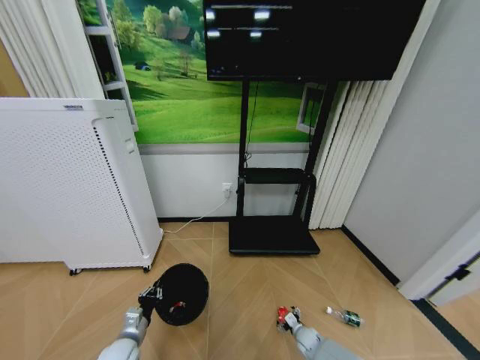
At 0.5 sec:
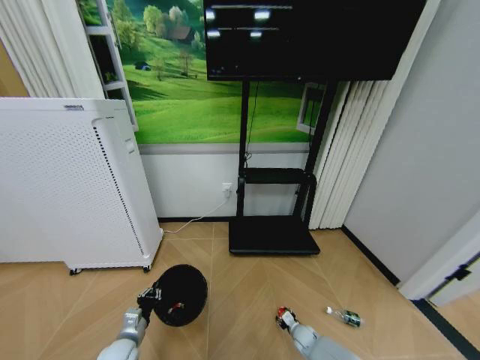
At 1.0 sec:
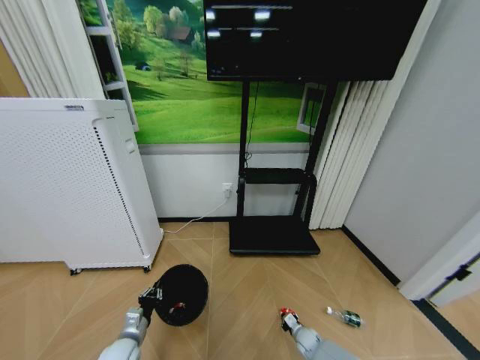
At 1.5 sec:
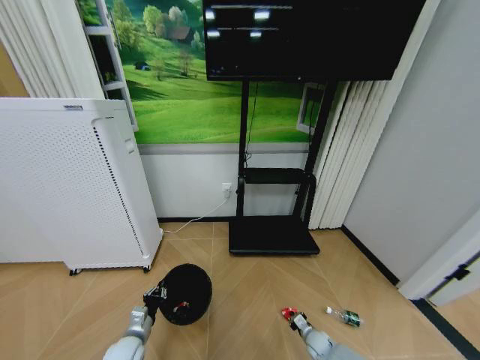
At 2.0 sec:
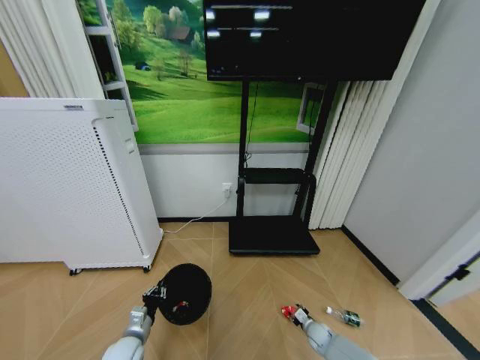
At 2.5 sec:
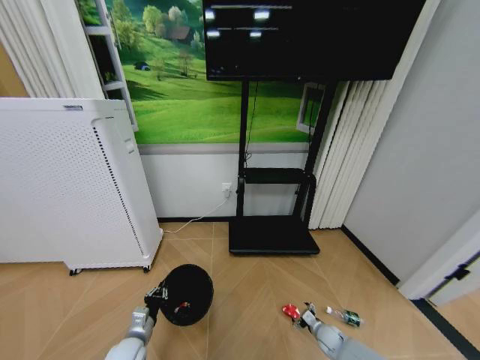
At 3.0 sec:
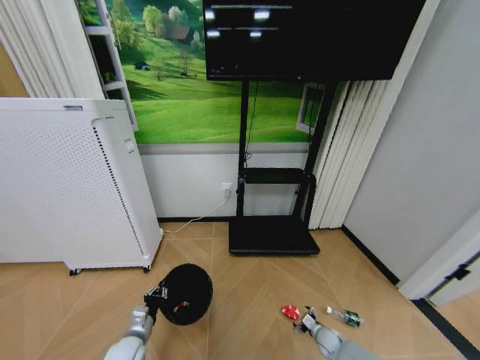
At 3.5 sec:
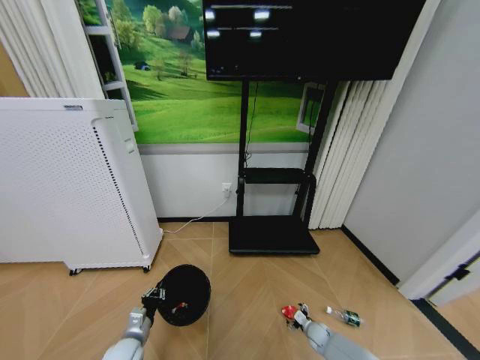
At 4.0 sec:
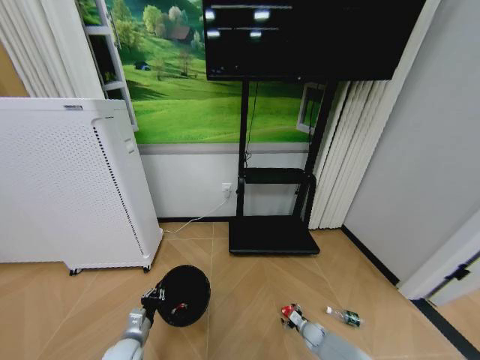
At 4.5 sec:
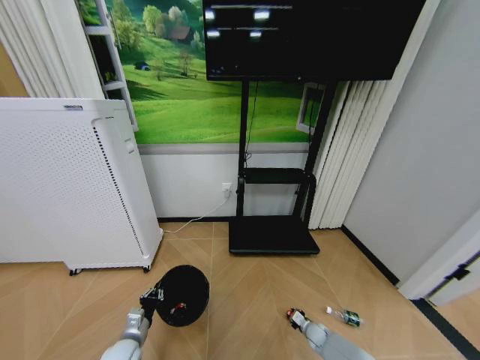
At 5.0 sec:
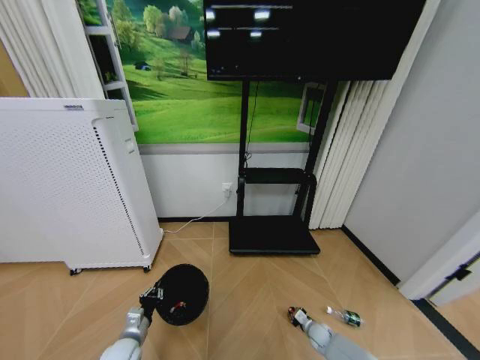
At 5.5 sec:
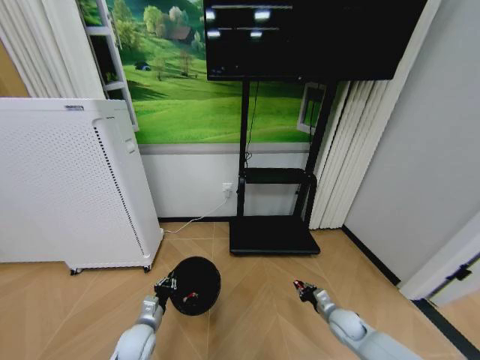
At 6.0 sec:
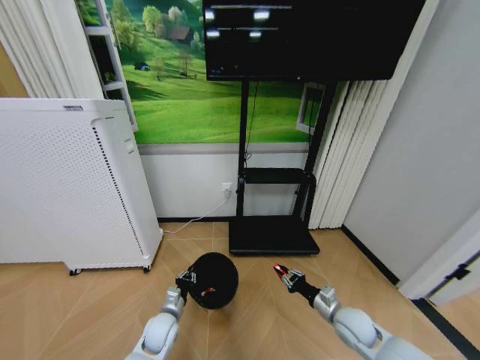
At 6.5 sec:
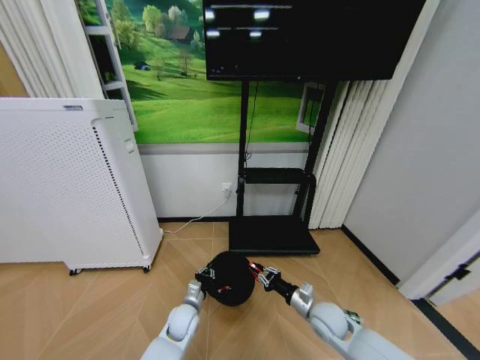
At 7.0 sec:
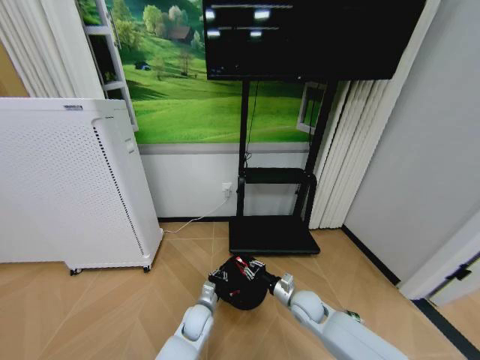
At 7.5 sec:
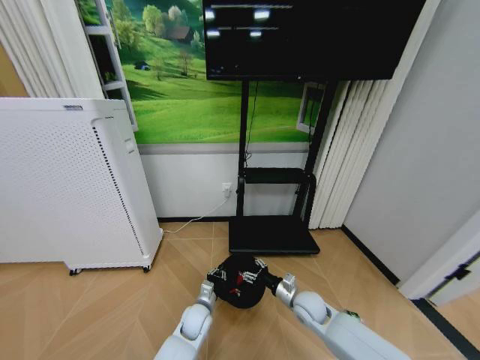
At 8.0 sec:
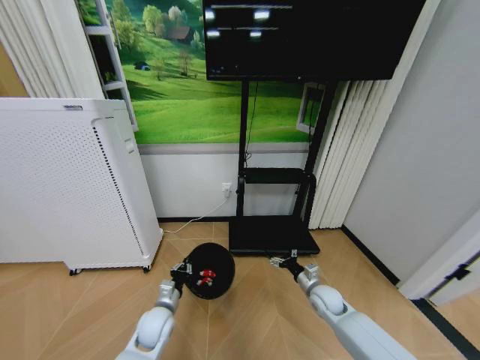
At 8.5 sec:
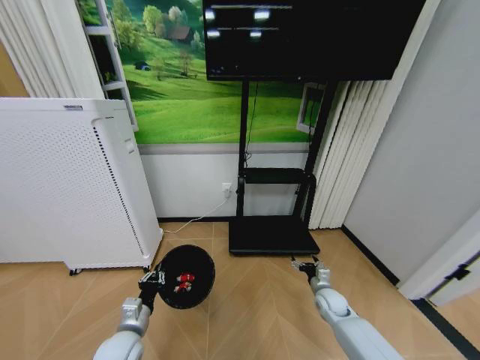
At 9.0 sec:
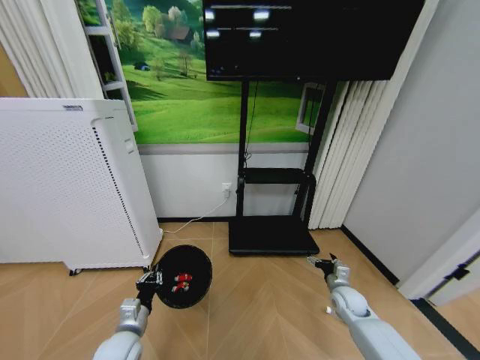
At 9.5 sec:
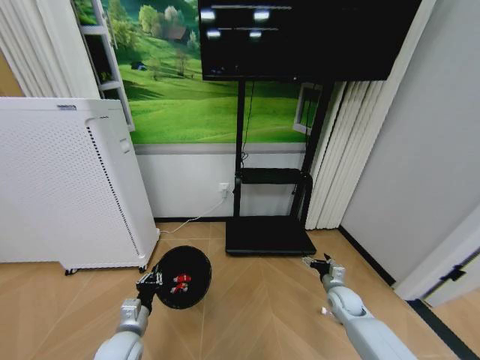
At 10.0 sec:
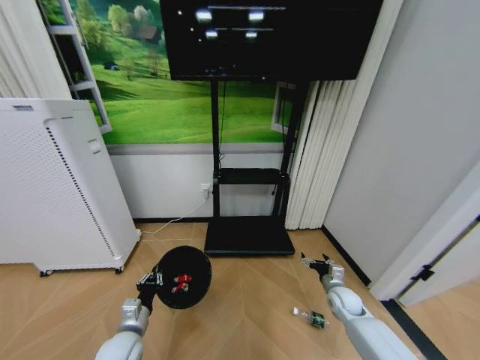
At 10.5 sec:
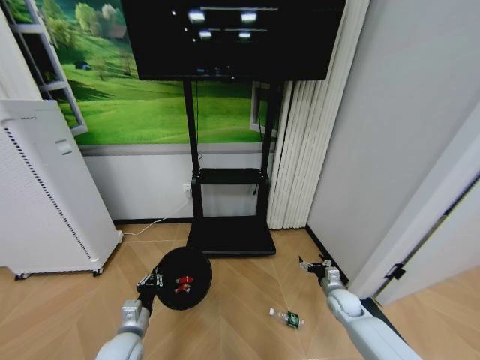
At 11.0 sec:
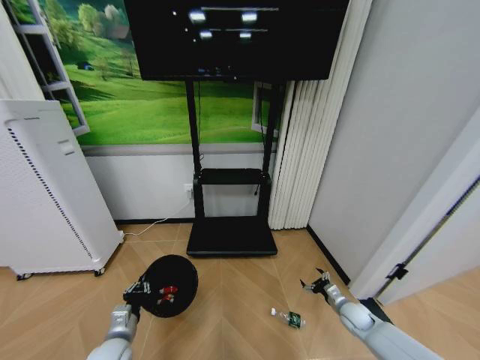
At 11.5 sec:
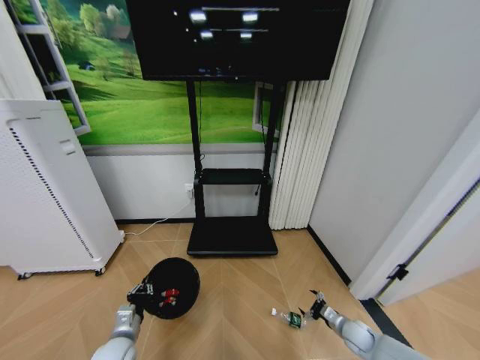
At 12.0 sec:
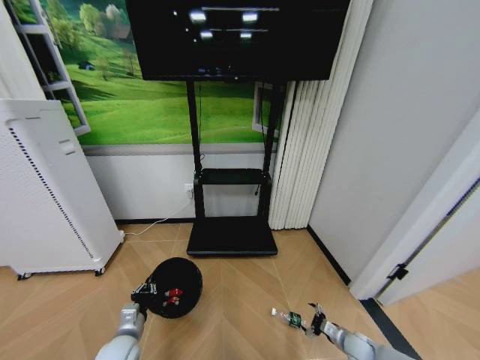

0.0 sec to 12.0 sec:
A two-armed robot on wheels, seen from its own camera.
Task of the whole recording: Pick up the trash bin and place the garbage on the floor into it.
0.0 sec to 2.0 sec: The right gripper closes its fingers.
2.0 sec to 4.0 sec: The right gripper opens up.
4.0 sec to 6.0 sec: The left gripper moves to the right and forward, approximately 10 cm. Meanwhile the right gripper shifts some 25 cm upward, and closes its fingers.
6.0 sec to 8.0 sec: The left gripper reaches about 10 cm to the right, then returns. The right gripper shifts some 10 cm forward, reaches approximately 10 cm to the left, then returns, and opens up.
8.0 sec to 10.0 sec: The right gripper travels to the right by roughly 5 cm, while the left gripper goes roughly 5 cm backward.
10.0 sec to 12.0 sec: The right gripper heads downward and backward, covering about 15 cm.

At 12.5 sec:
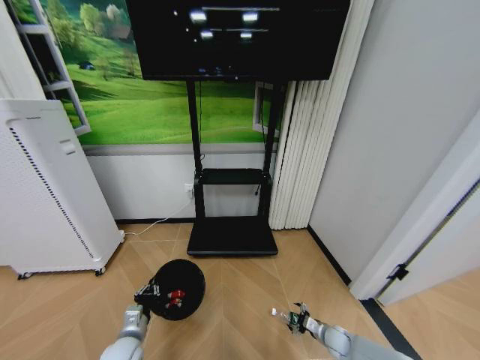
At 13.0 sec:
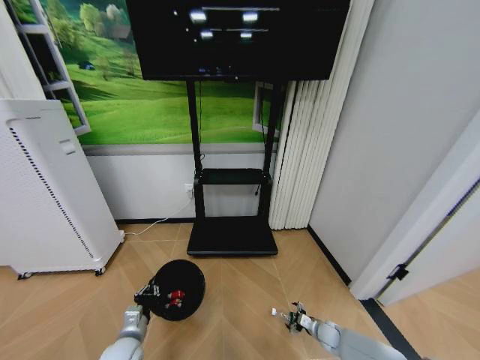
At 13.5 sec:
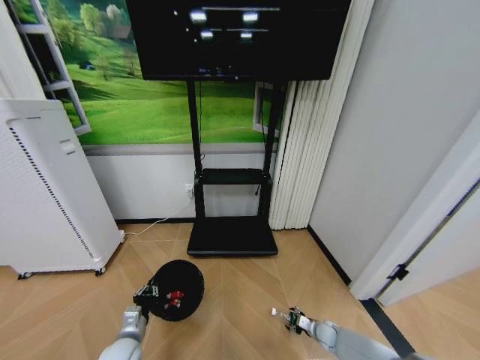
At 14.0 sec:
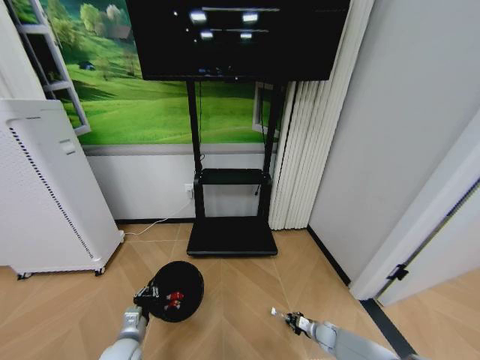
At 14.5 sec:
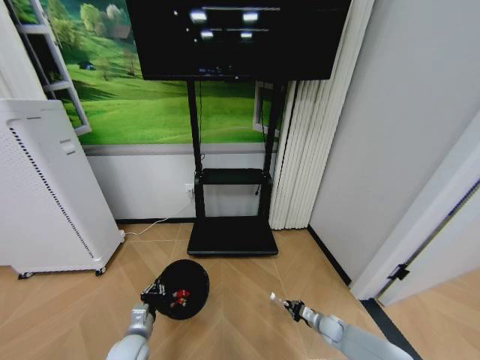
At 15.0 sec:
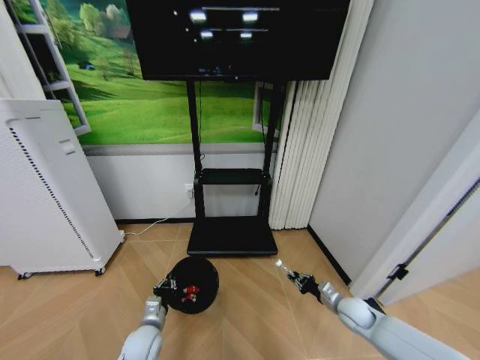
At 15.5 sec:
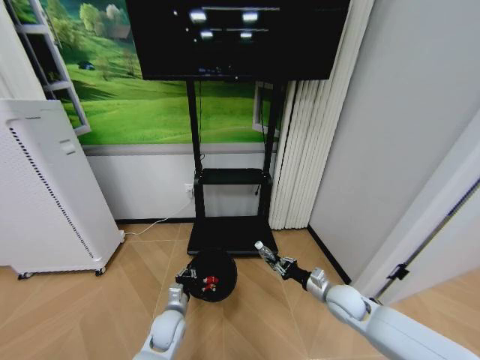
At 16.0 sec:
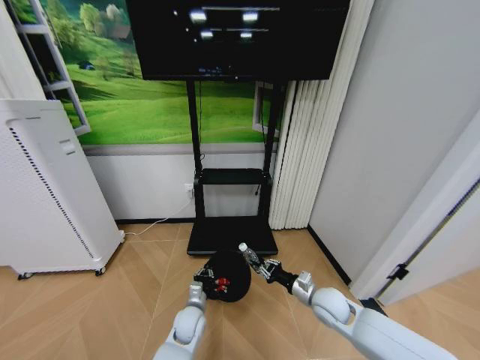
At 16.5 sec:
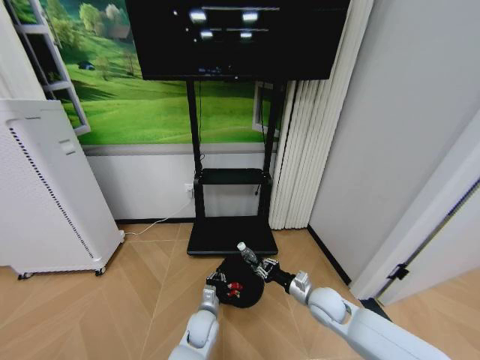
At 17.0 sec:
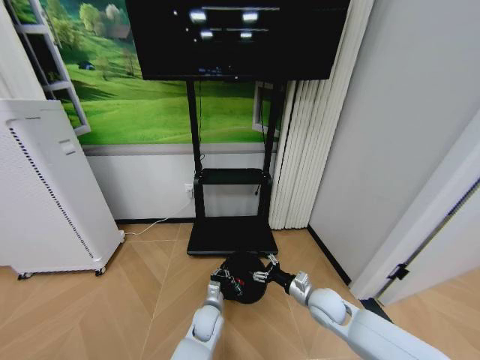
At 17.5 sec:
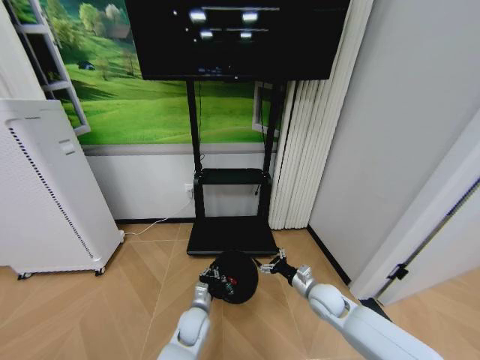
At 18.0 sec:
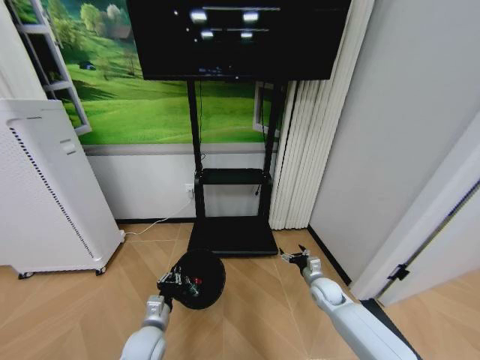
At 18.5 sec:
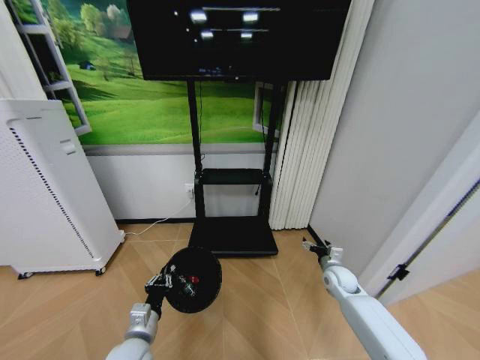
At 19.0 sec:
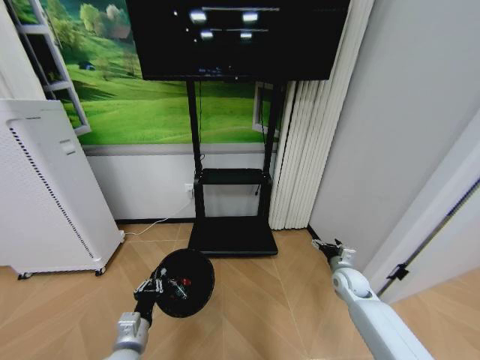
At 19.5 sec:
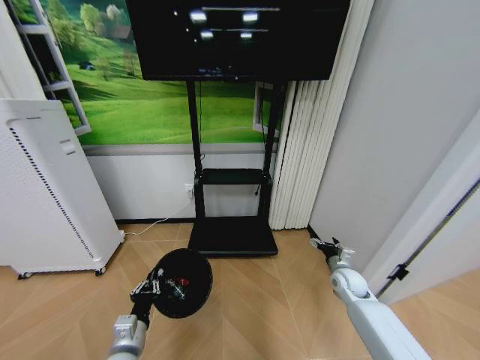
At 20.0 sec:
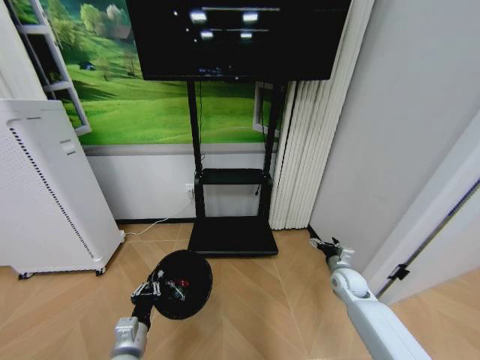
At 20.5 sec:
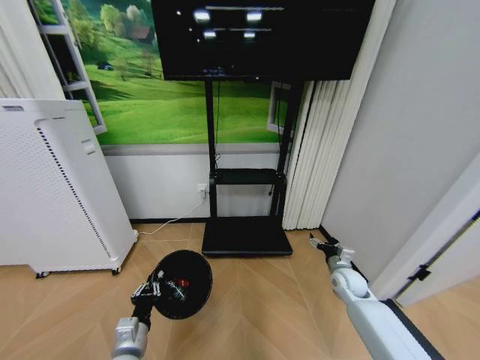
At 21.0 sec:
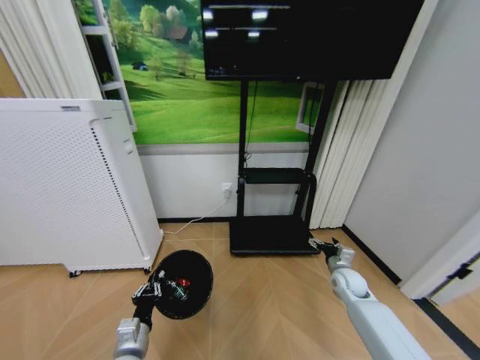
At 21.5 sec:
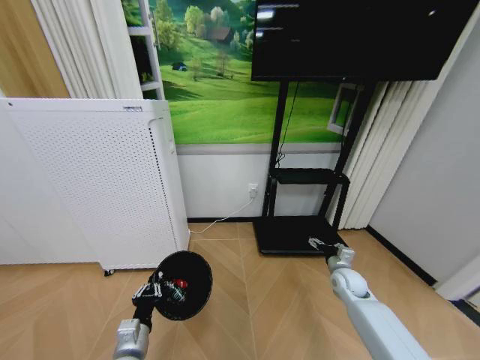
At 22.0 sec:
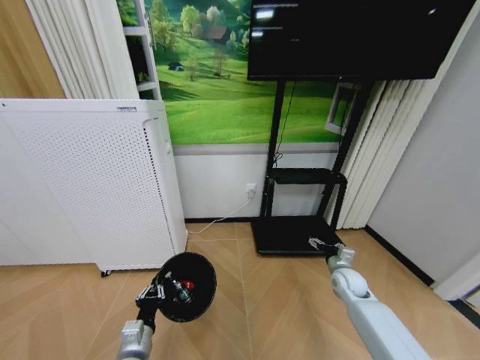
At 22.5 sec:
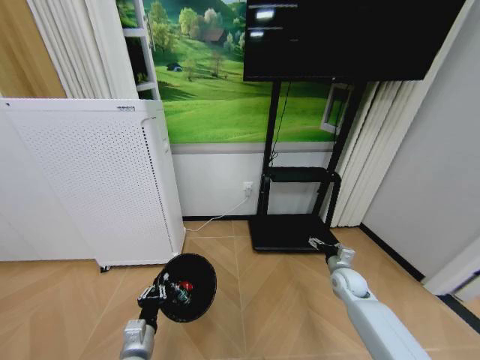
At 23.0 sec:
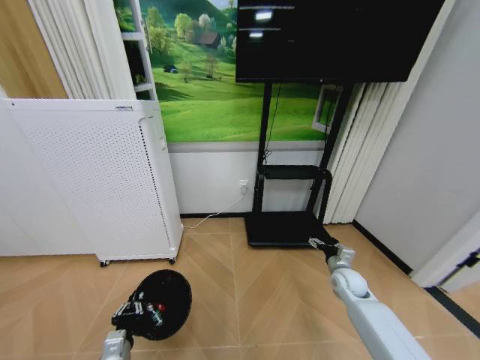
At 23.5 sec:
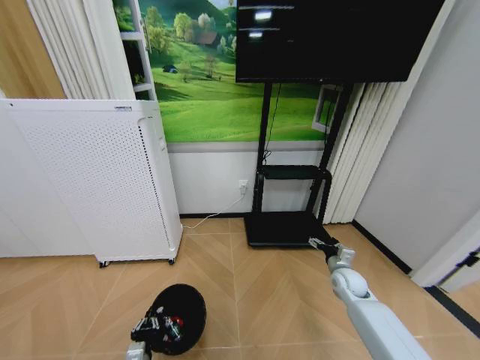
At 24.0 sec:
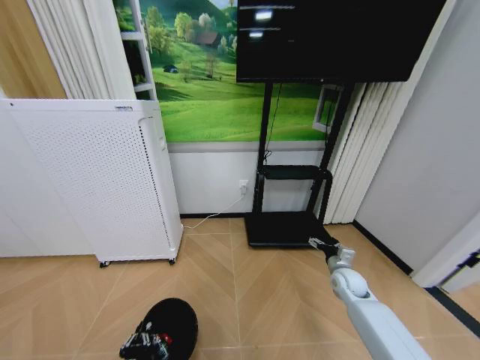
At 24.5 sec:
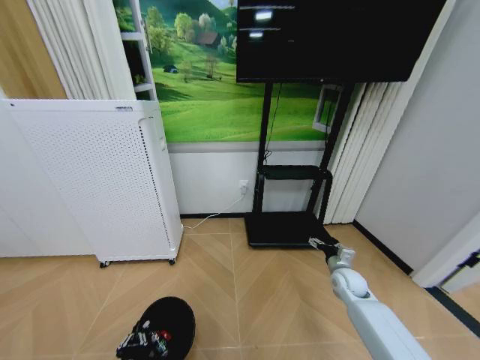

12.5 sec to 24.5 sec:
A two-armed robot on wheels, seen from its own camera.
Task of the whole recording: Pick up the trash bin and place the garbage on the floor into it.
12.5 sec to 14.5 sec: The right gripper closes its fingers.
14.5 sec to 16.5 sec: The left gripper travels to the right by roughly 20 cm. The right gripper travels upward and to the left by about 25 cm.
16.5 sec to 18.5 sec: The right gripper is displaced to the right and forward by approximately 15 cm, and opens up, while the left gripper is displaced to the left, upward and backward by some 20 cm.
22.5 sec to 24.5 sec: The left gripper is displaced downward and backward by about 10 cm.

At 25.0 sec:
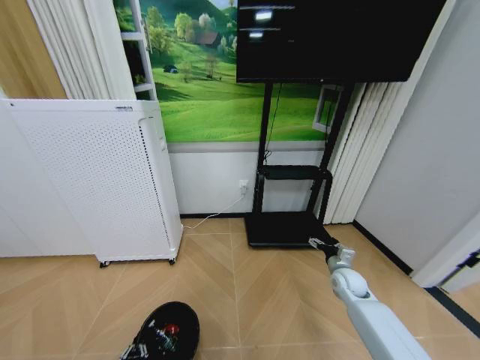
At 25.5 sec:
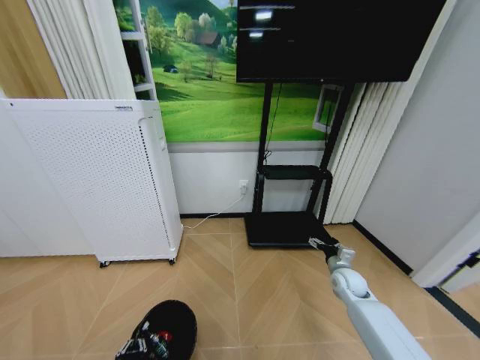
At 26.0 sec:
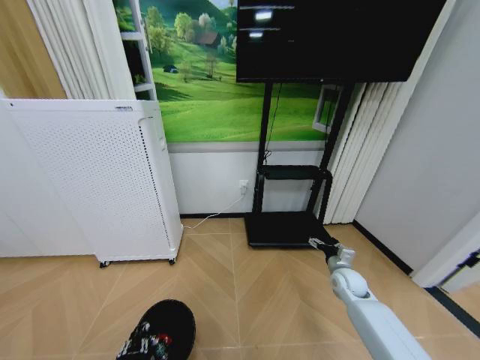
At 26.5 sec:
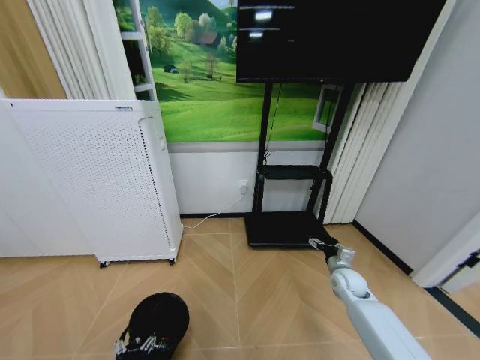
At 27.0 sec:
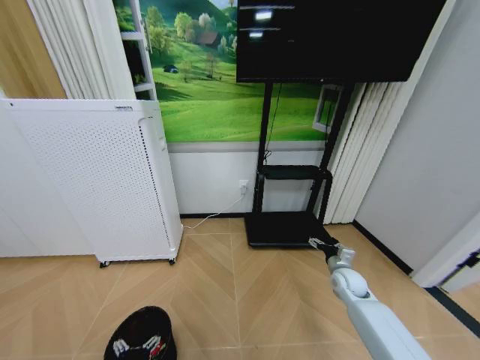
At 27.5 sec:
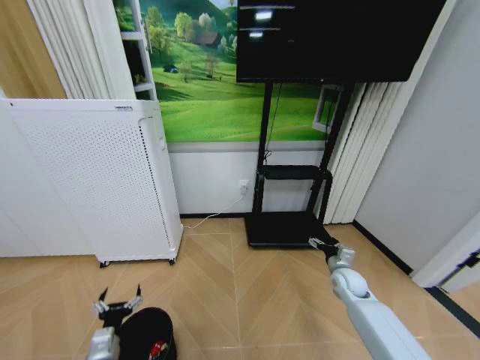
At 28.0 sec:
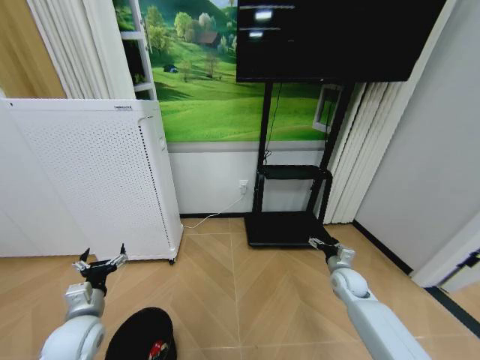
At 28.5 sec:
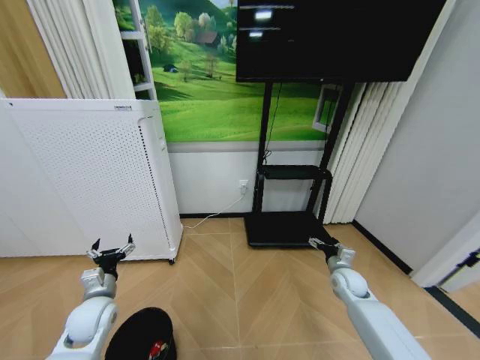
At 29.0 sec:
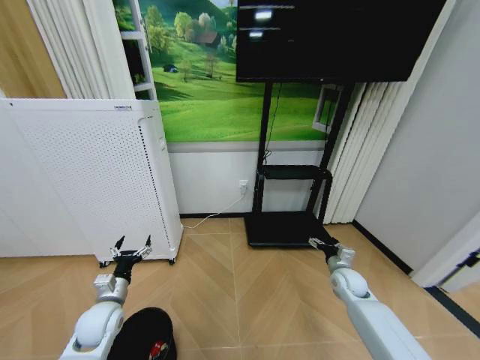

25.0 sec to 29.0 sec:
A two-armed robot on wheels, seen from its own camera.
Task of the whole recording: Pick up the trash bin and place the garbage on the floor into it.
25.0 sec to 27.0 sec: The left gripper opens.
27.0 sec to 29.0 sec: The left gripper heads forward, upward and to the left, covering about 25 cm.
